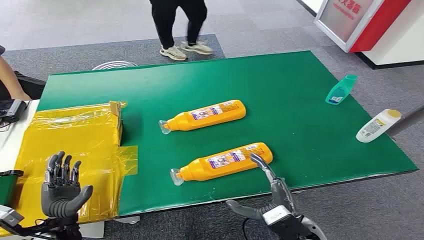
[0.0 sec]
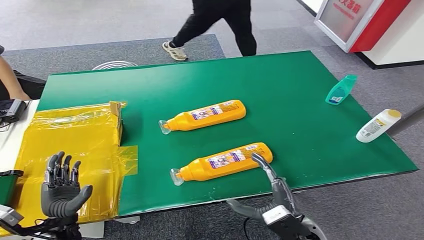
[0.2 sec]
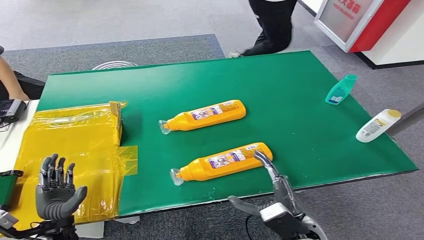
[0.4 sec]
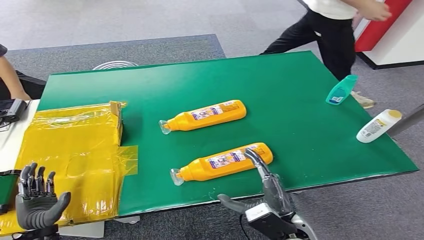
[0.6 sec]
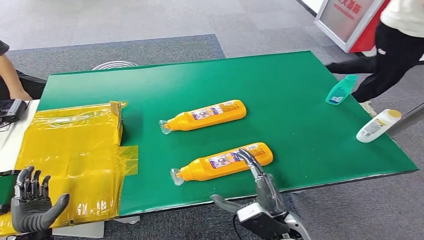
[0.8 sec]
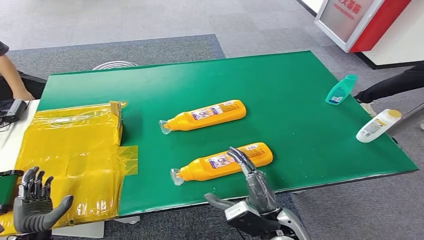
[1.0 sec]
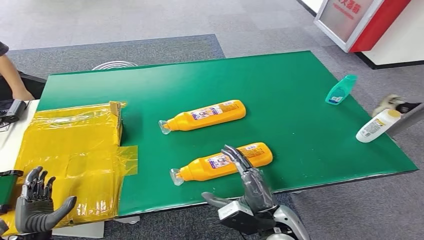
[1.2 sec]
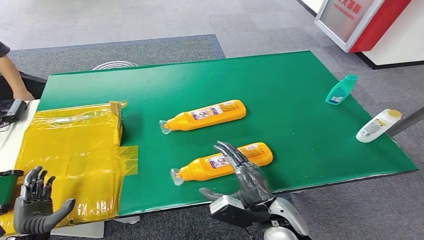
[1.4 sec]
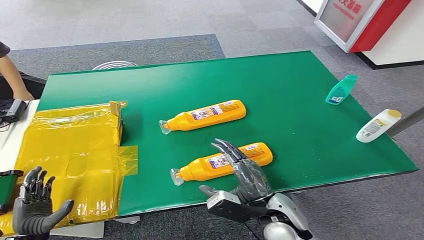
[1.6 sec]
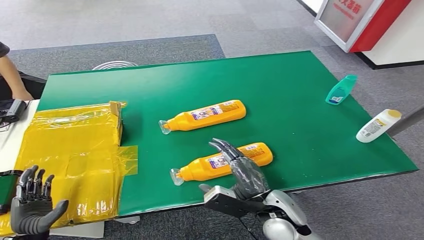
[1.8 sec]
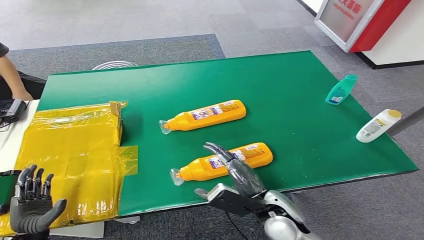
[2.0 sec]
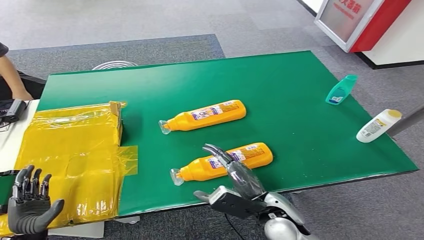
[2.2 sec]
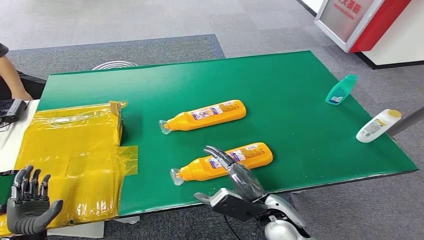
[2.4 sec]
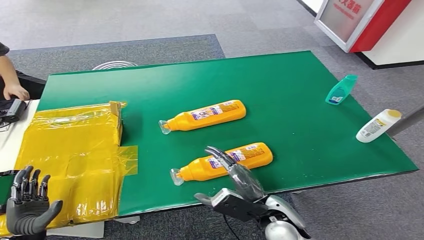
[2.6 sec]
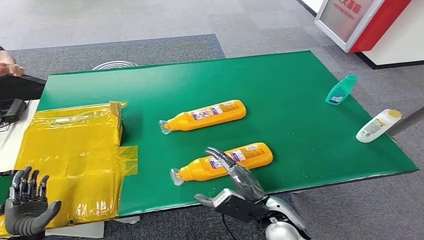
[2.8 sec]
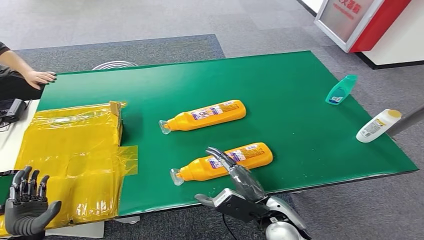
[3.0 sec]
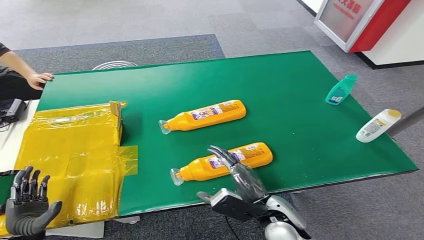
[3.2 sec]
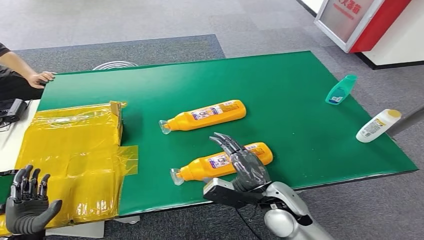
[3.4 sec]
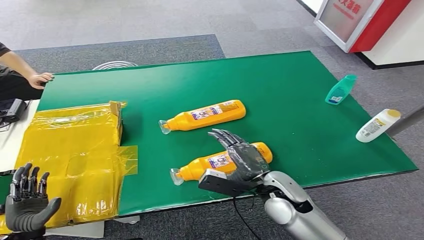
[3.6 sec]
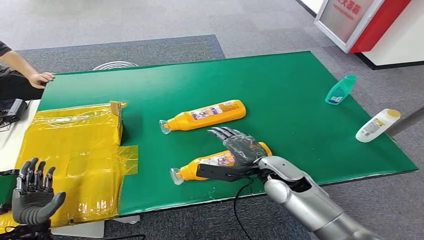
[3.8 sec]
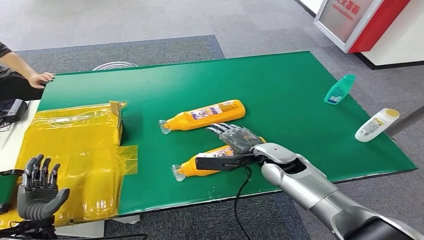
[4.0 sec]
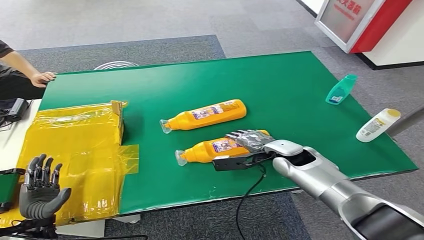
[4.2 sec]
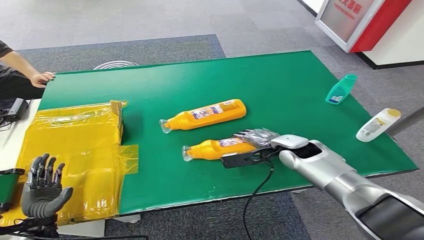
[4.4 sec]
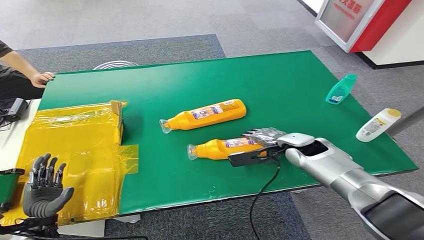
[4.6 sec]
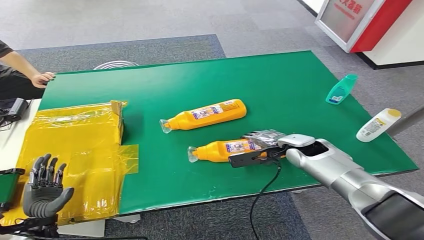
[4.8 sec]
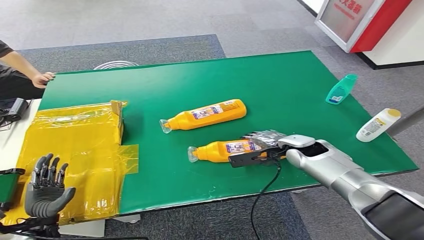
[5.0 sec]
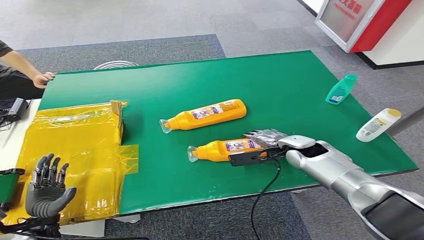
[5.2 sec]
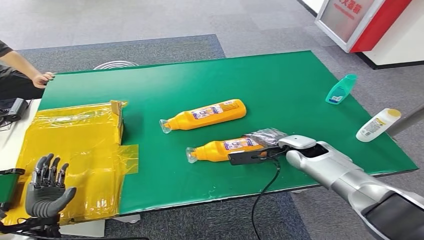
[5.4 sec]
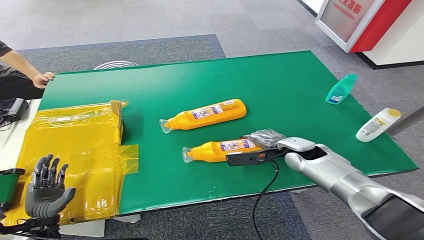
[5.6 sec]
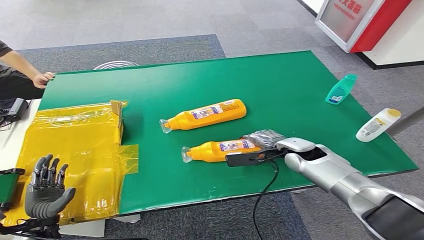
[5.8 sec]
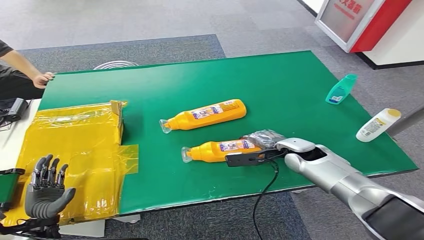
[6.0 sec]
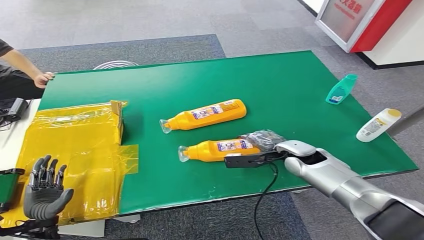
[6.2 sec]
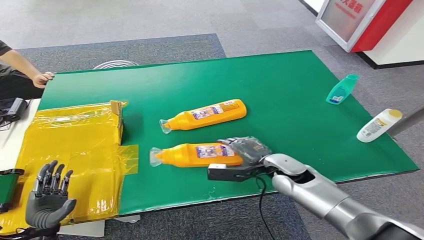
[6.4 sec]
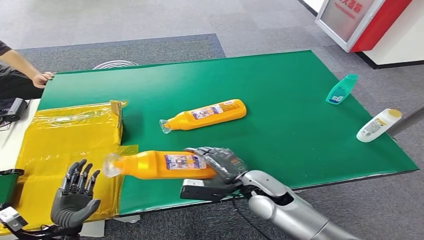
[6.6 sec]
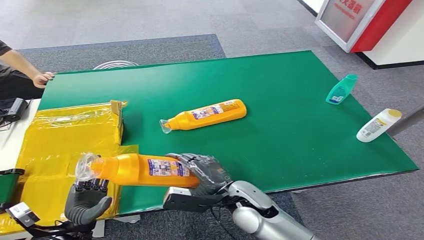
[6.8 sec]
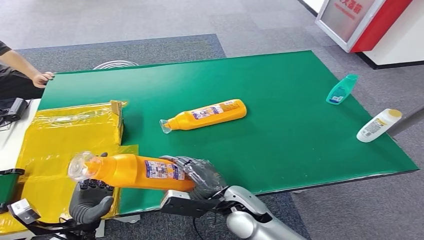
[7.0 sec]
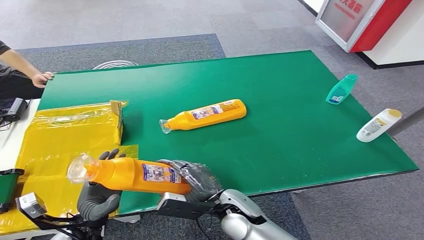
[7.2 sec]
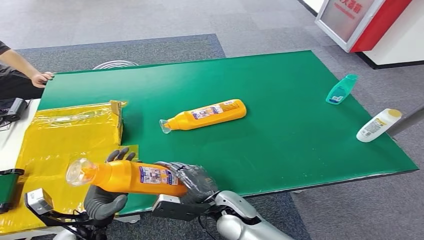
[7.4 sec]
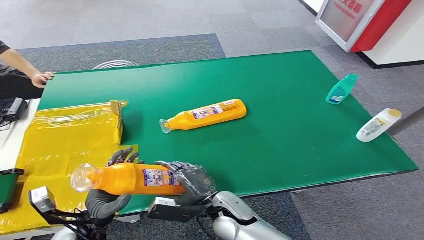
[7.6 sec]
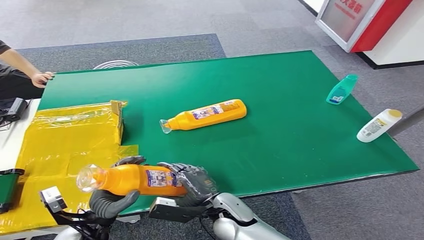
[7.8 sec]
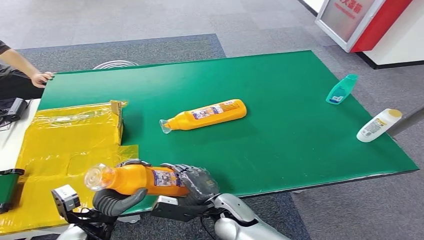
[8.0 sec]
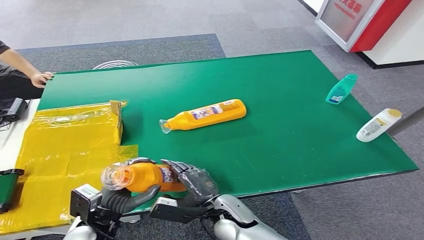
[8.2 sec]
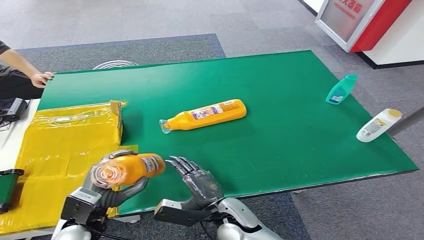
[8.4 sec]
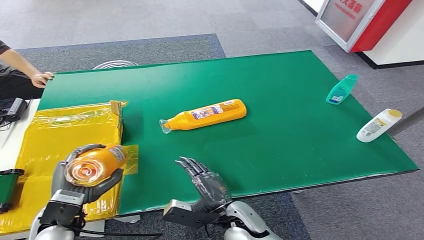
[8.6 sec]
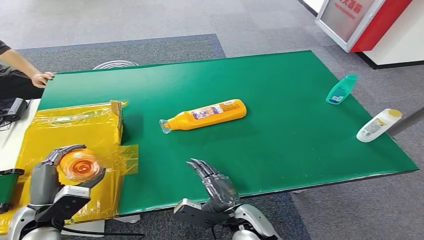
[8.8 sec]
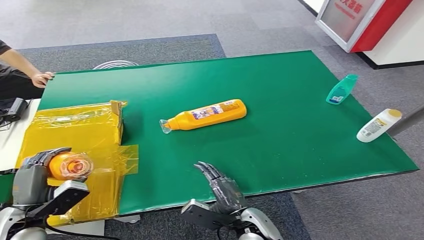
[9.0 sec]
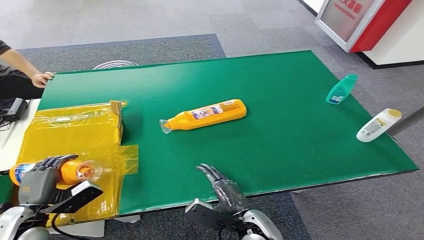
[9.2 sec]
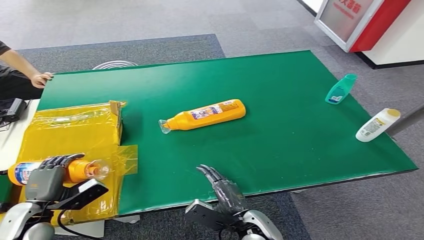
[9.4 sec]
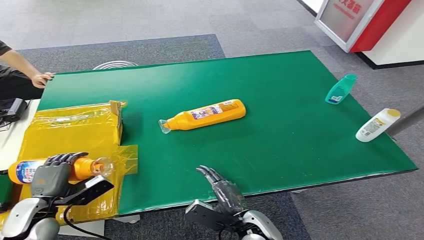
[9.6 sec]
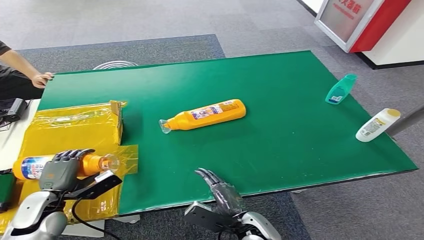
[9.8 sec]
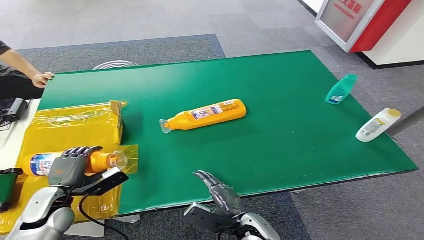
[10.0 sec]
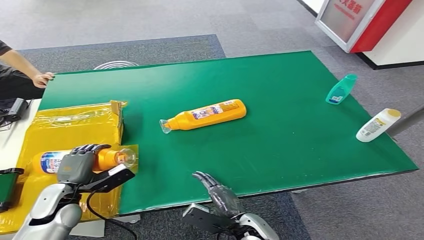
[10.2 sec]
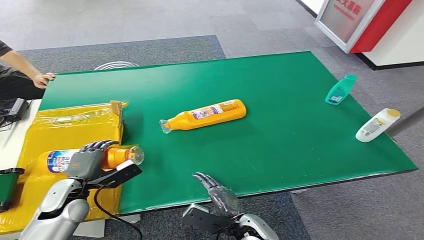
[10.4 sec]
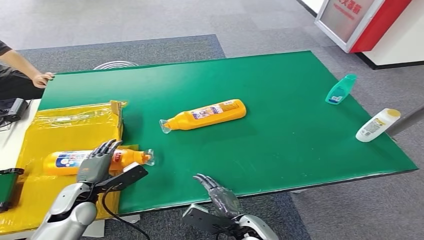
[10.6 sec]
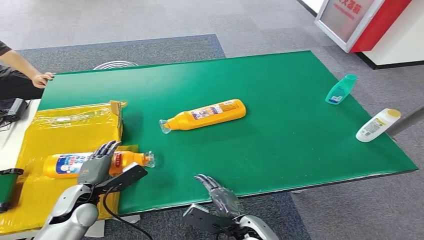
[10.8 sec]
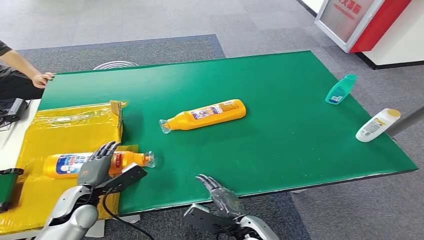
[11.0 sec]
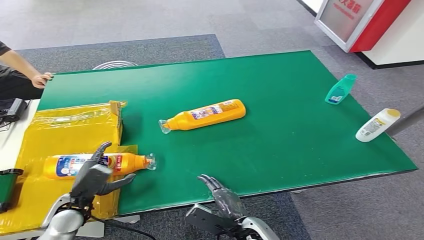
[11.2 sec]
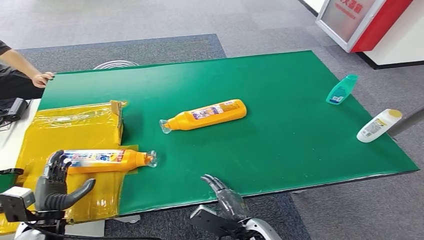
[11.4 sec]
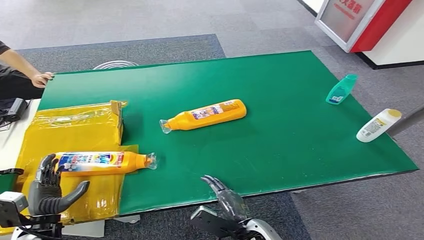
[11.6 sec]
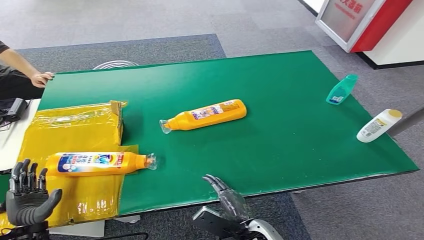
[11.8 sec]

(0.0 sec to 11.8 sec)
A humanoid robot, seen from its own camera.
Step, 0.0 sec - 6.6 sec: Pick up the bottle from the table.
Step, 6.8 sec - 11.8 sec: Turn the bottle to the front side.
1.4 sec - 3.0 sec: The hands stay close to where they were, moving slightly.
3.0 sec - 4.4 sec: The right hand heads forward and to the right, covering approximately 20 cm.
4.4 sec - 6.0 sec: The hands make only small movements.
7.4 sec - 8.8 sec: The right hand moves approximately 5 cm. Meanwhile the left hand travels to the left and upward by about 10 cm.
8.8 sec - 10.4 sec: The left hand travels forward and downward by approximately 10 cm.
10.4 sec - 11.8 sec: The left hand moves backward and to the left, approximately 10 cm.

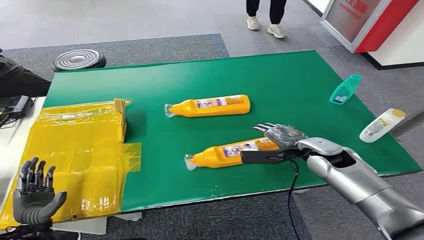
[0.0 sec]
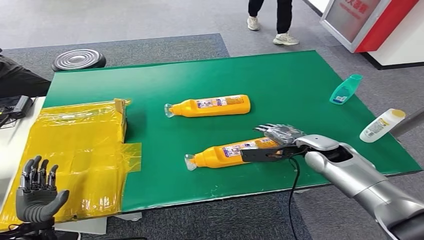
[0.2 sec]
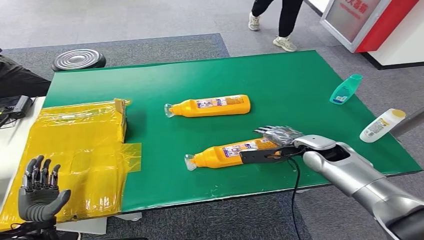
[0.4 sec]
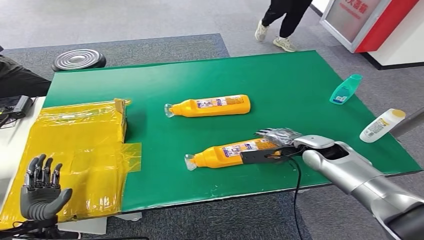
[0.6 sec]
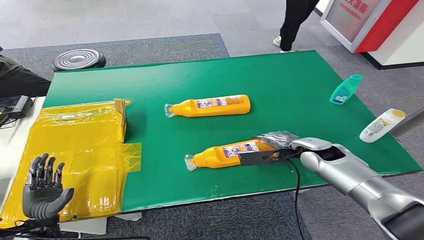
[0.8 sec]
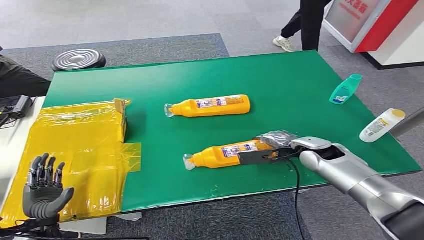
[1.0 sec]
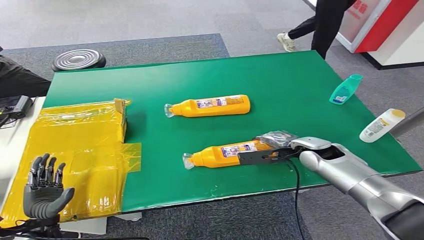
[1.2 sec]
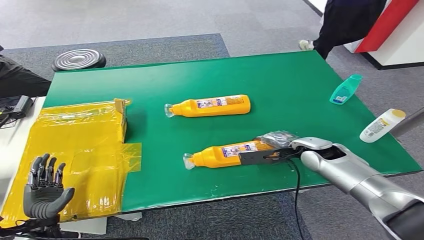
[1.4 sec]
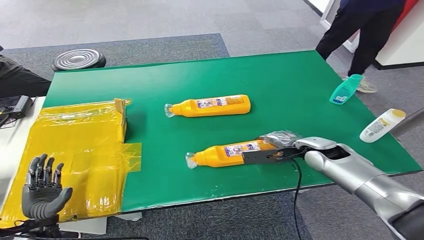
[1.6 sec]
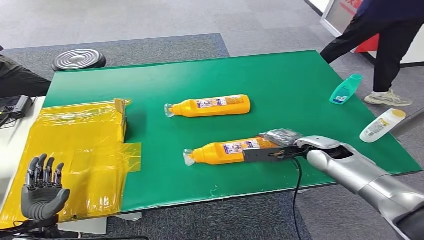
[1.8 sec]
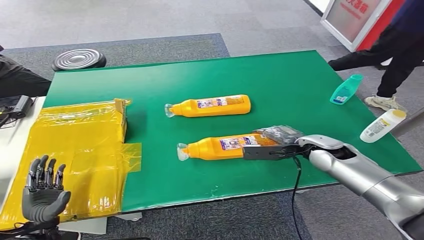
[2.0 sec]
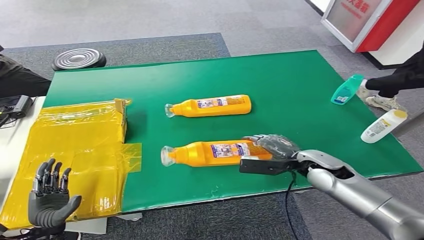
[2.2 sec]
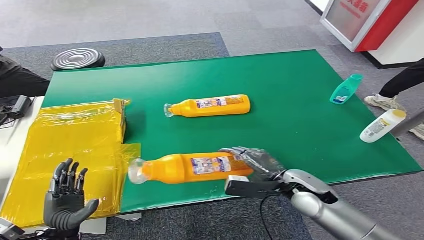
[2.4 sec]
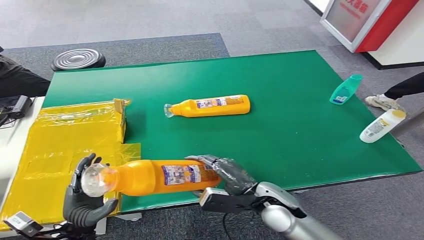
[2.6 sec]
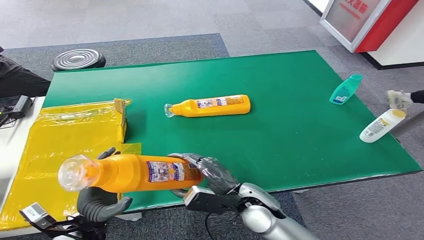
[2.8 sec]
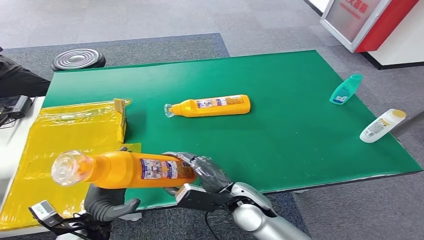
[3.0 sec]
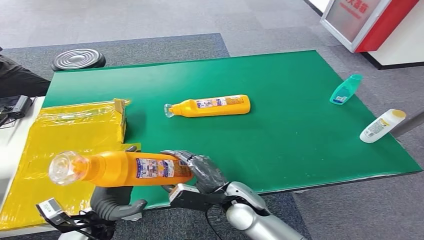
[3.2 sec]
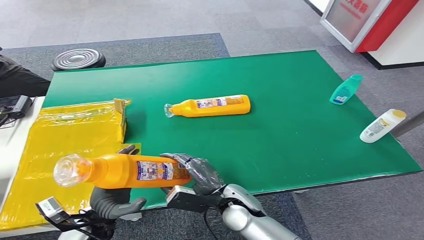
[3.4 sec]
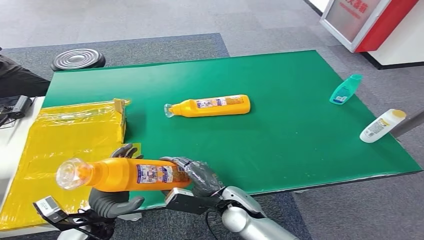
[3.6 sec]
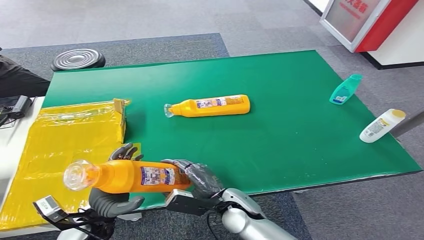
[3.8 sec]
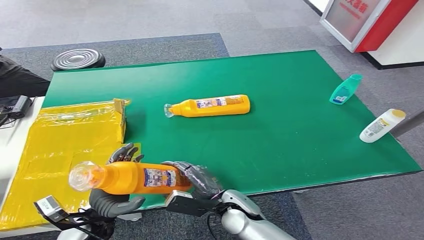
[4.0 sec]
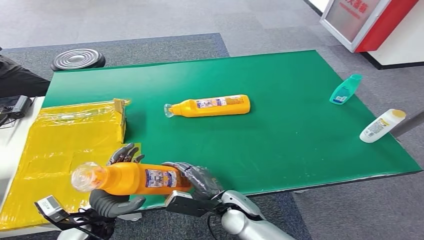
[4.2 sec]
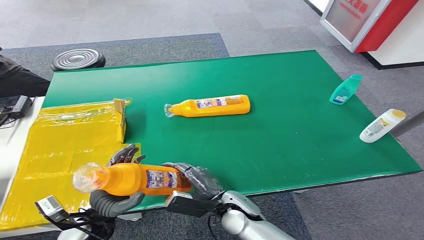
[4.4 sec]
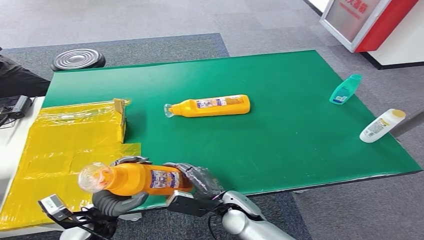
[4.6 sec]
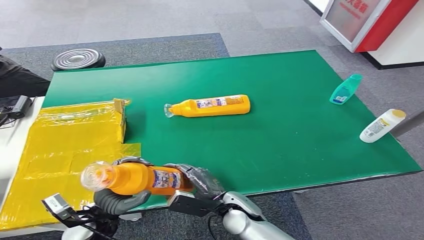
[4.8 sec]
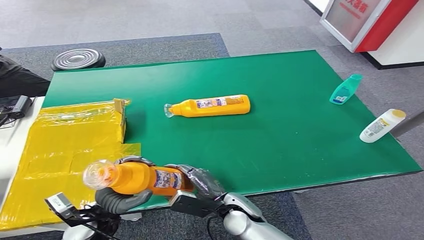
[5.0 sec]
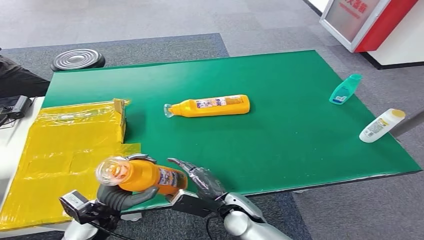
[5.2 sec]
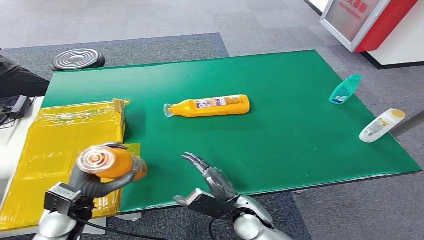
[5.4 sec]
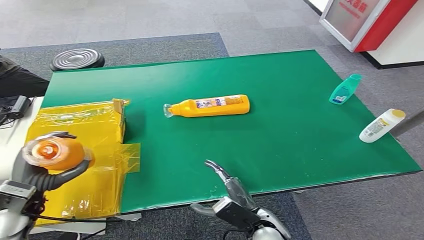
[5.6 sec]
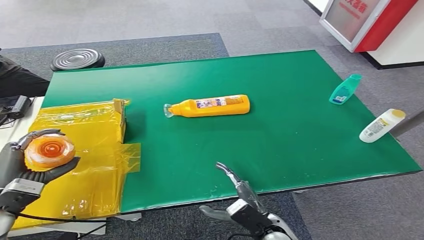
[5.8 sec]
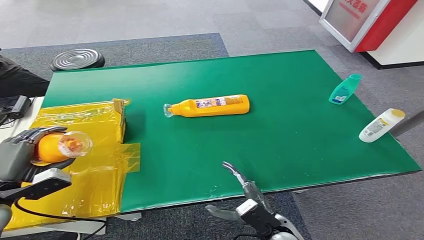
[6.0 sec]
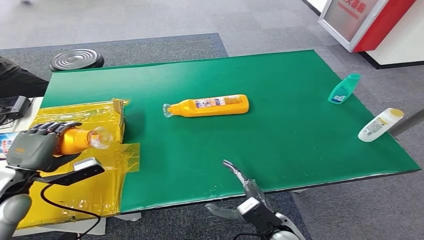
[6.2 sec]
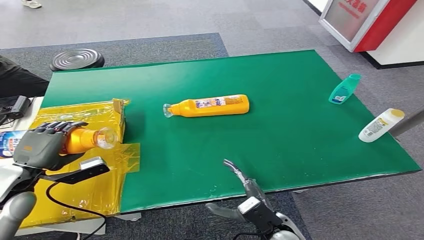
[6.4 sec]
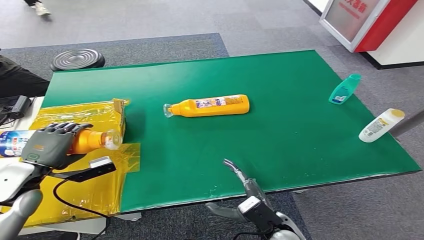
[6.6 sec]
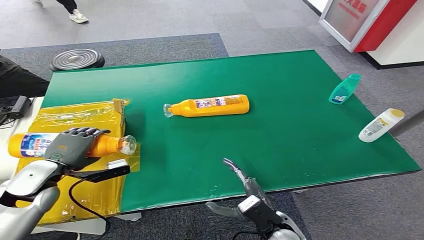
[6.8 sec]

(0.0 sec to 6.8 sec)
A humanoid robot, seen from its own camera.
Step, 0.0 sec - 2.6 sec: Pick up the bottle from the table.
2.8 sec - 4.0 sec: The right hand shifts about 5 cm downward.
4.0 sec - 5.4 sec: The left hand ends up roughly 5 cm from where it was.
5.4 sec - 6.8 sec: The right hand is displaced to the right by some 5 cm. Meanwhile the left hand is displaced to the left, forward and upward by approximately 10 cm.
